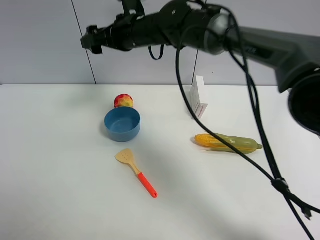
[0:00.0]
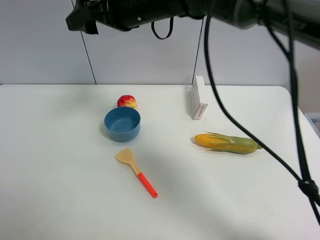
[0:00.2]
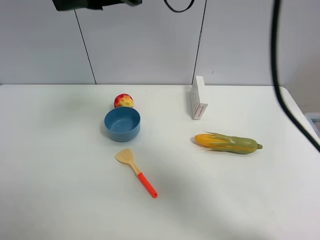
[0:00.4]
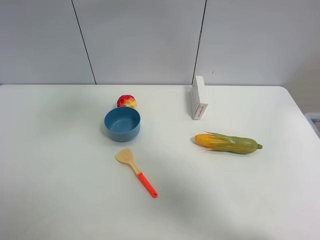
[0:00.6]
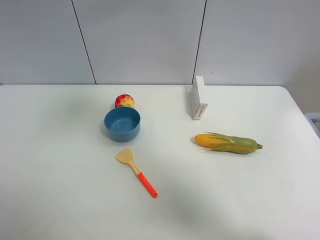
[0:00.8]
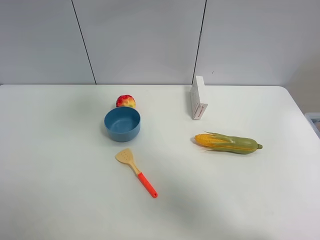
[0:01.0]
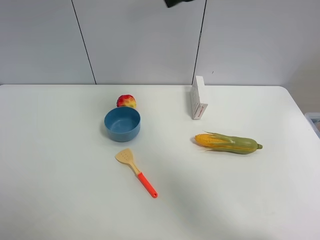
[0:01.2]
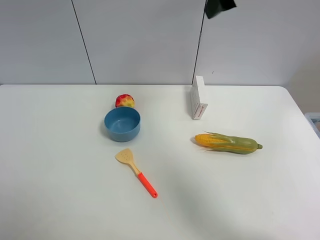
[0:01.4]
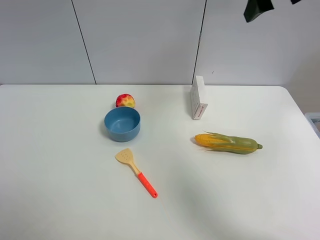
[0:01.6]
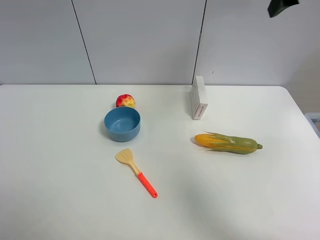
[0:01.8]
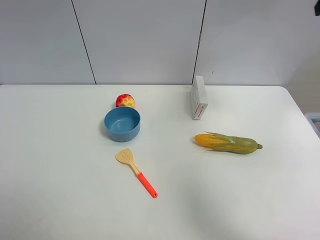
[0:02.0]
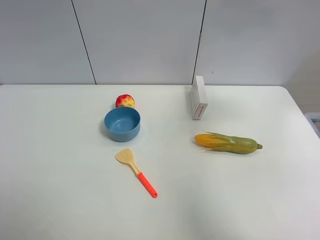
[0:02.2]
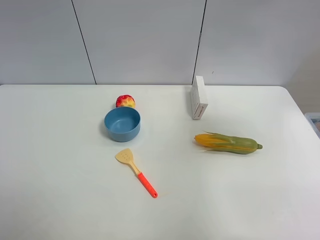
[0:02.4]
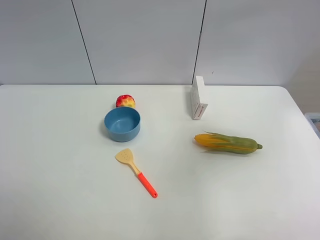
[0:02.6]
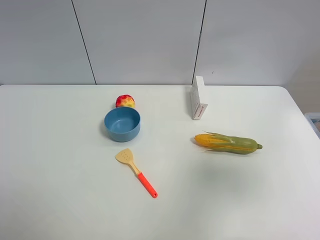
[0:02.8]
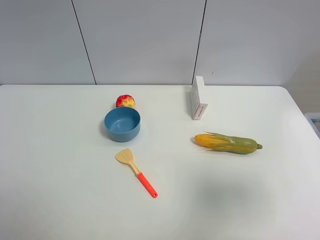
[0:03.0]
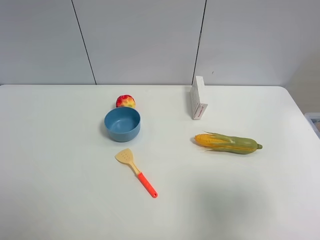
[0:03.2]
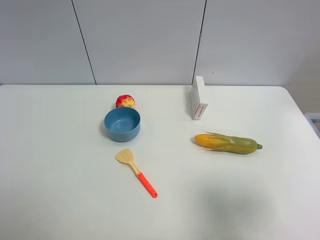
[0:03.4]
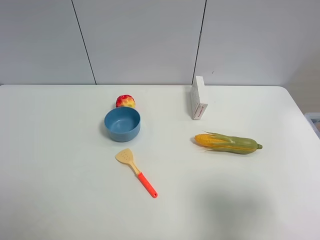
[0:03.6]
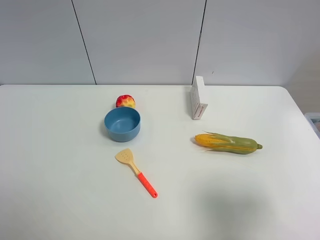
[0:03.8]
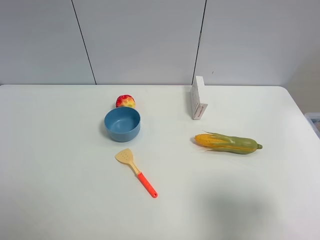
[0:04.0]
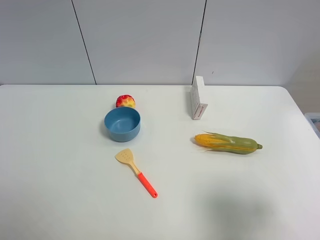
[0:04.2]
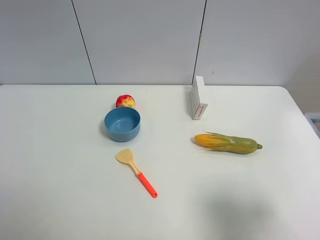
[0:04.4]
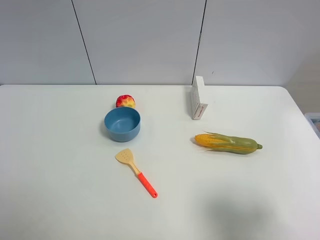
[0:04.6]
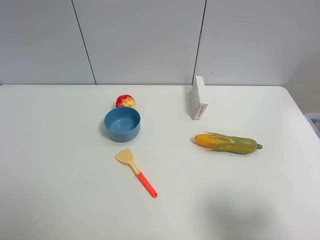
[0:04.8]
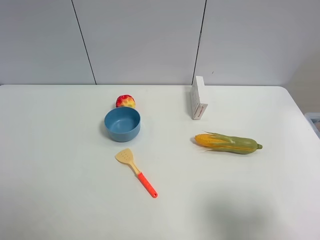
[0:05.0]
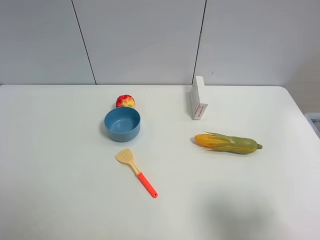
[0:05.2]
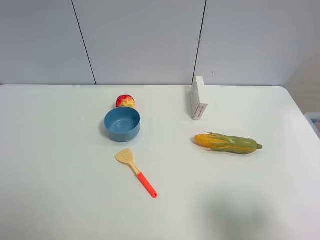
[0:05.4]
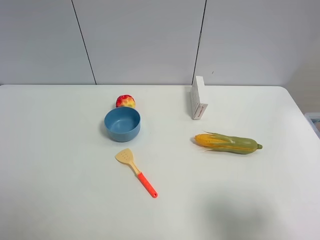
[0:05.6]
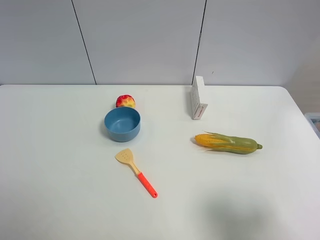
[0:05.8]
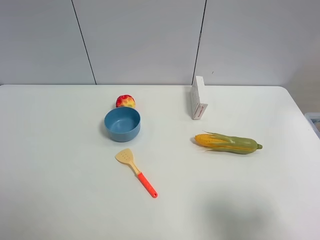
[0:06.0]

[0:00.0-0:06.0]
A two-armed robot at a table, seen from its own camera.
Task of the whole recording: the gripper move the object.
0:00.0 to 0:01.6: The right gripper shifts roughly 30 cm to the right and upward.
0:01.6 to 0:03.0: The right gripper heads backward, covering roughly 30 cm.
0:03.0 to 0:04.4: The right gripper travels downward by about 10 cm.

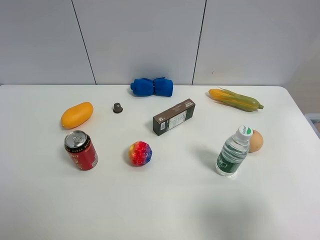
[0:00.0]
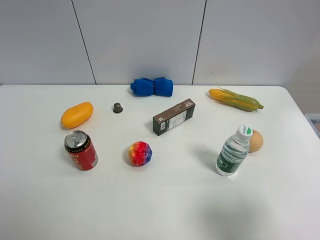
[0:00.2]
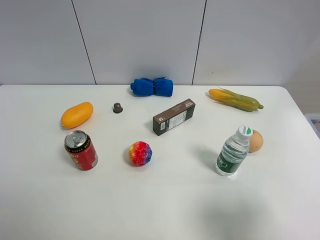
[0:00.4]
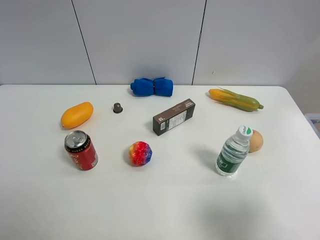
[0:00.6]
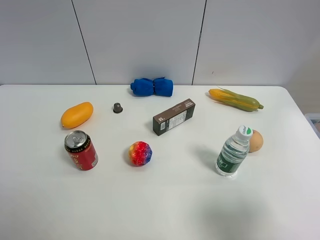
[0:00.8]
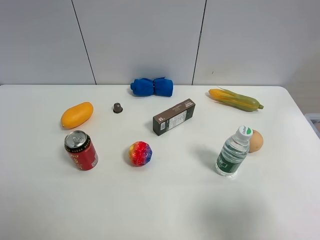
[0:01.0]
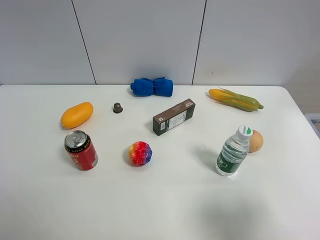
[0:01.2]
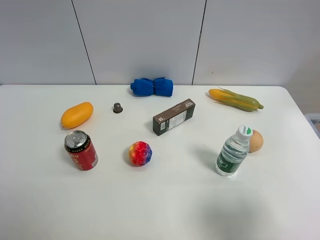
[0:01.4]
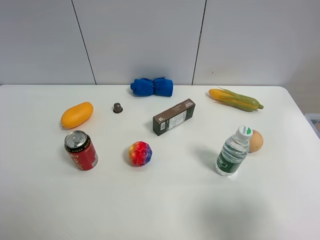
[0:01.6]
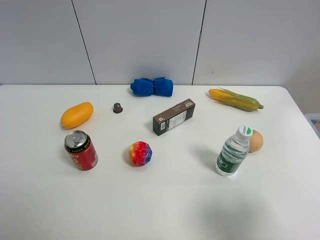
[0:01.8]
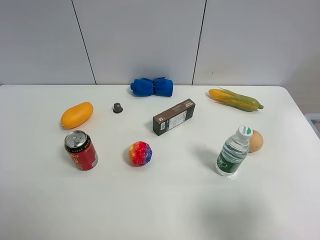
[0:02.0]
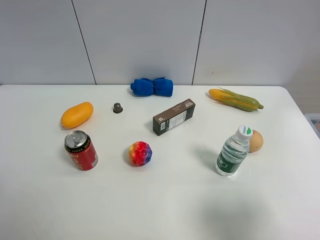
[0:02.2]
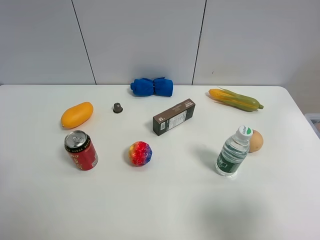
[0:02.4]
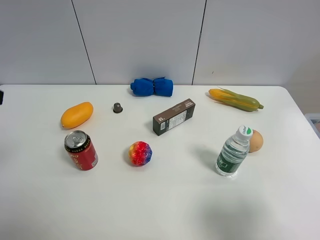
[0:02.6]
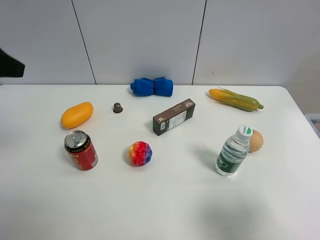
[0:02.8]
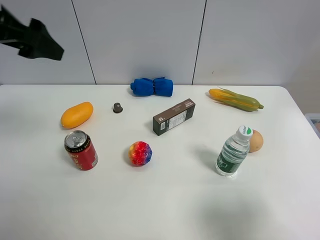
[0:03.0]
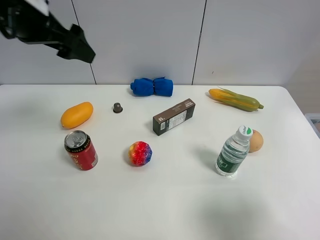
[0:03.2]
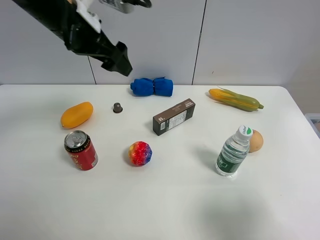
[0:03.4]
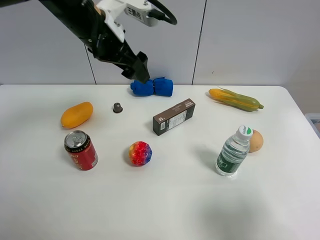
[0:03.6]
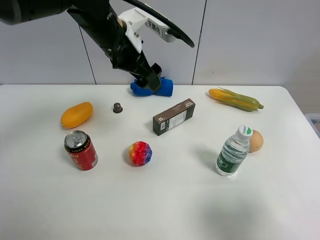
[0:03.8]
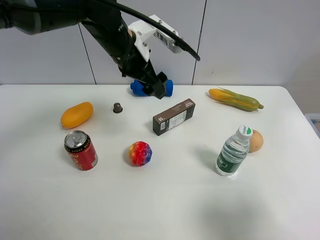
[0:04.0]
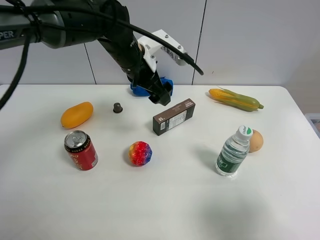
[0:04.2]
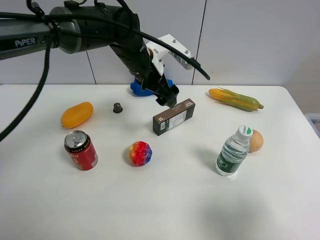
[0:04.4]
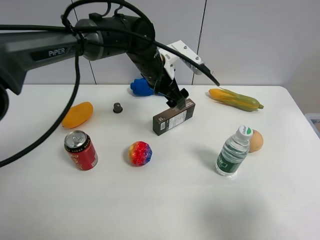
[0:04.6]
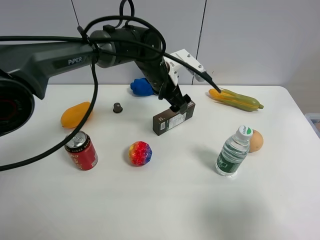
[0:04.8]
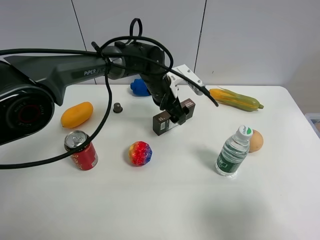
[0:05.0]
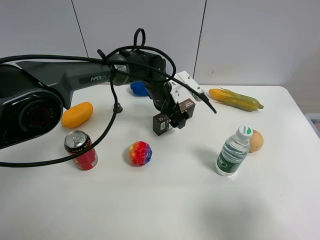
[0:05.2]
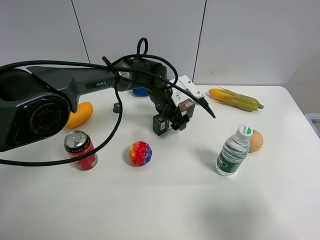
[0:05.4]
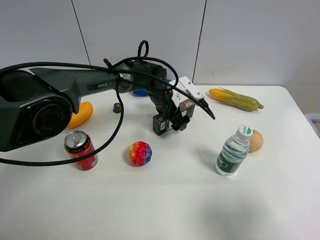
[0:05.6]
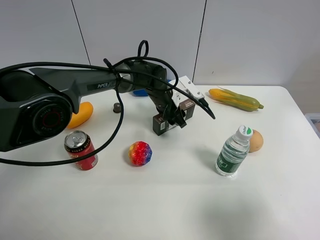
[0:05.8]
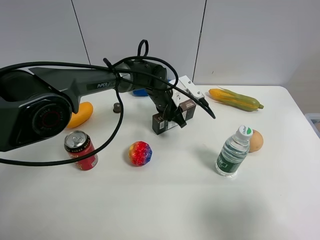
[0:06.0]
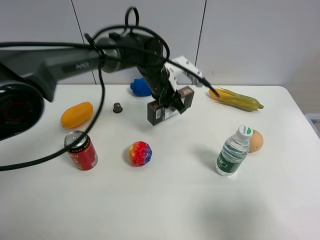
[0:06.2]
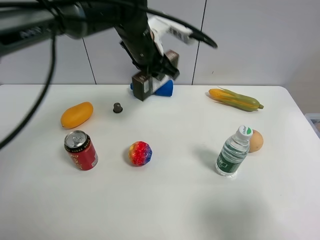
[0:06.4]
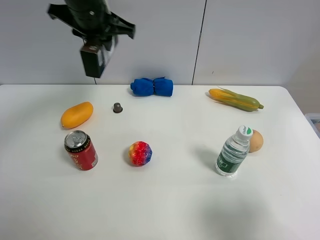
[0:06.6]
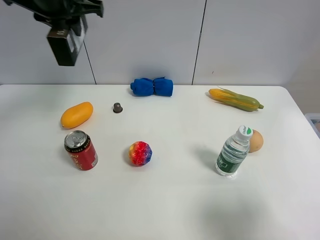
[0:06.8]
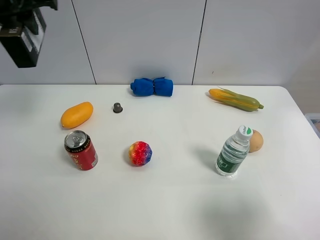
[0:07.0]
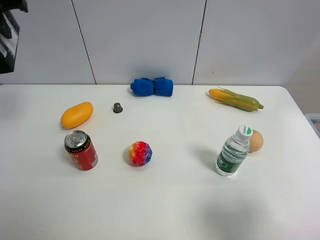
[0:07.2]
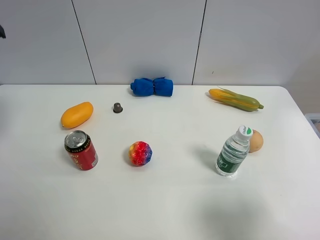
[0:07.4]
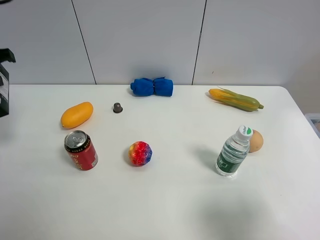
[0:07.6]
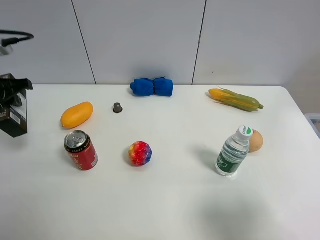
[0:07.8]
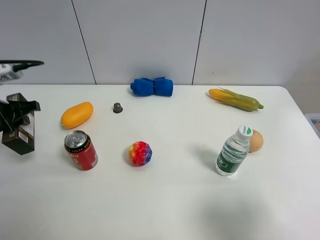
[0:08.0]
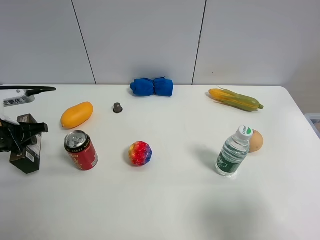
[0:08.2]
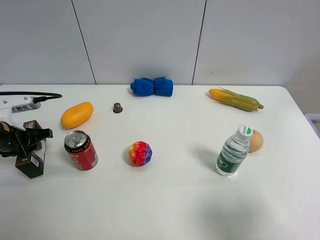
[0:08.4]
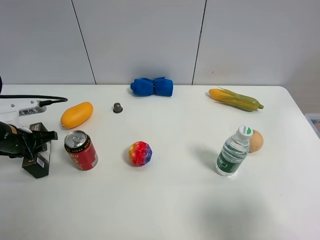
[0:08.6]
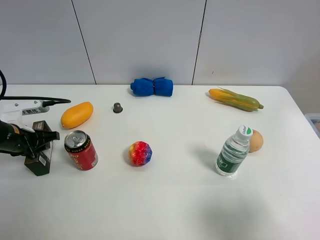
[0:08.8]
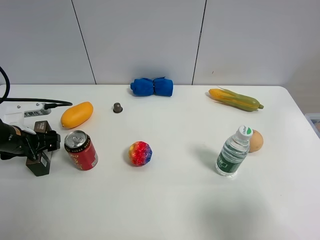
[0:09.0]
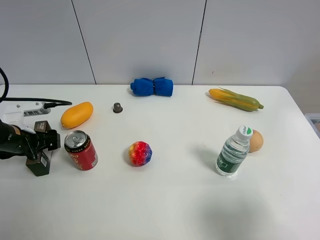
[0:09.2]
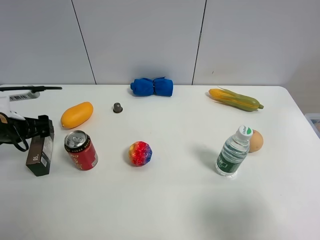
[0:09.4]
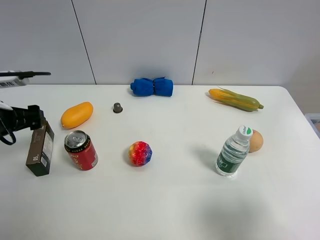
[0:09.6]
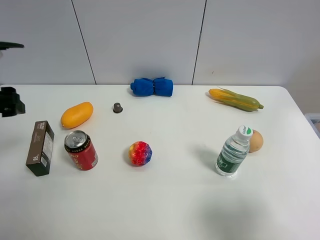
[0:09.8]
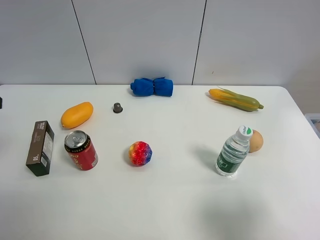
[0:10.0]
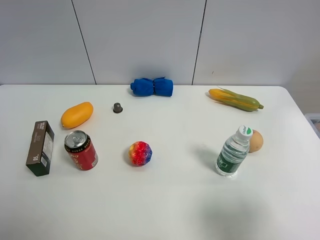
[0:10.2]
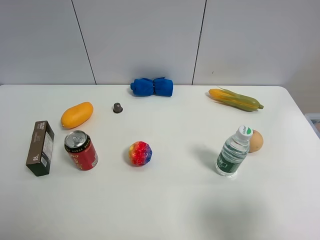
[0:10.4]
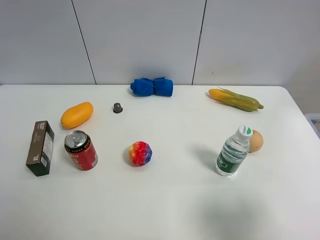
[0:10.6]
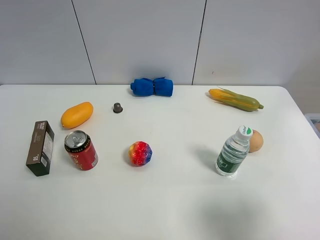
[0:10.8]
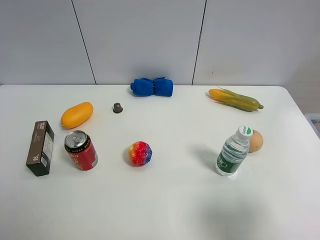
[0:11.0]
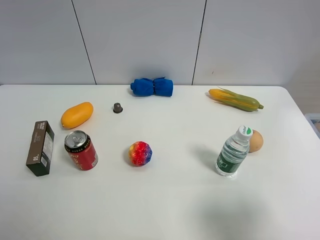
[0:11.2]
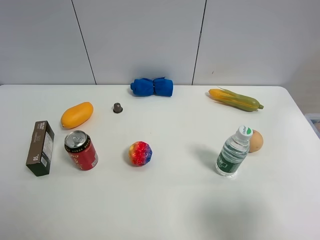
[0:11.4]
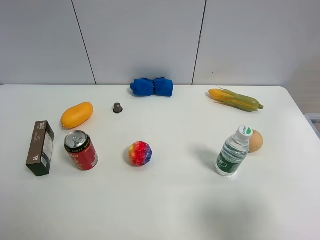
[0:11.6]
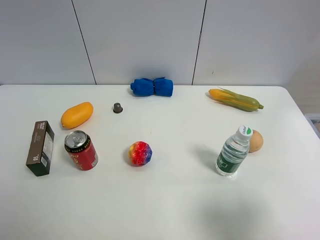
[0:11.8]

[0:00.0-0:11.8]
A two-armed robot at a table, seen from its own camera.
Task of the whole recording: the gripper move the object.
Step, 0:00.0 to 0:05.8: Grasp the Luckin Coffee box with the left gripper.
Step, 0:06.0 to 0:09.0: Place the Luckin Coffee box on the table with the left gripper.
0:00.0 to 0:01.4: Both grippers stay put.
0:01.4 to 0:03.0: The left gripper travels forward by approximately 30 cm.
0:03.0 to 0:04.4: The left gripper shifts about 30 cm to the right, downward and forward.
0:04.4 to 0:06.0: The left gripper travels downward by about 10 cm, and closes up.
0:06.0 to 0:07.4: The left gripper goes some 40 cm to the left and upward.
0:07.4 to 0:08.8: The left gripper moves downward, roughly 25 cm.
0:08.8 to 0:10.4: The left gripper is displaced upward and backward by some 30 cm, and opens.

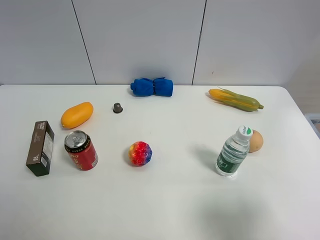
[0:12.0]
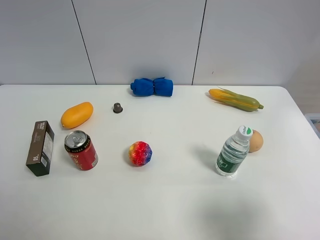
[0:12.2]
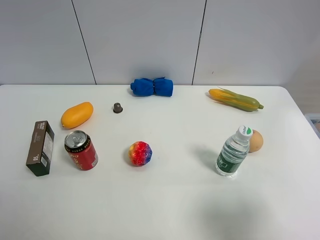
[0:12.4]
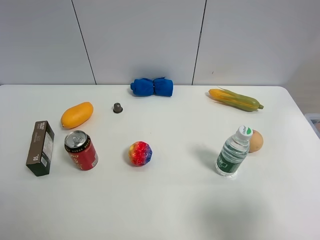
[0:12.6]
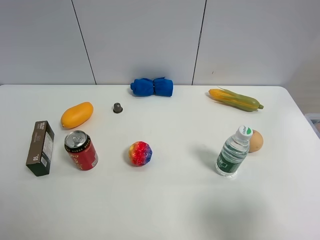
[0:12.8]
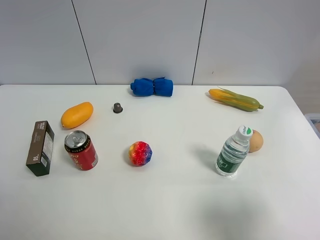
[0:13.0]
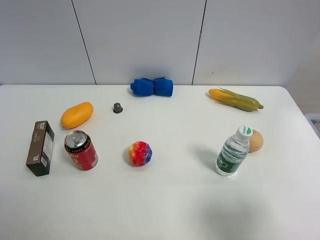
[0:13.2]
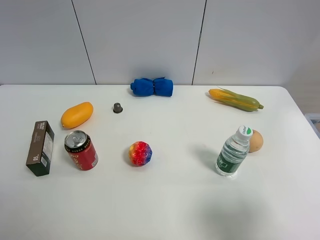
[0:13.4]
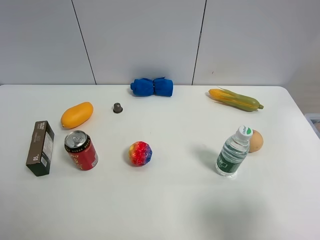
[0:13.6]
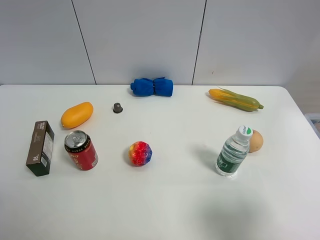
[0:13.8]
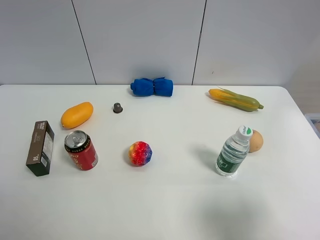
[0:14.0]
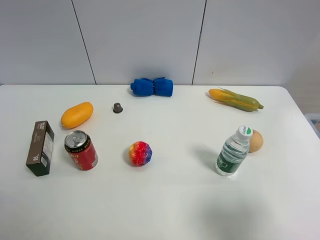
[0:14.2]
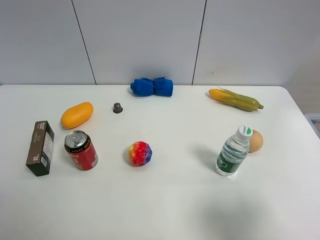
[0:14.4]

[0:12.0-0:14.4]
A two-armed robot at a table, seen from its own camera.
Task of the whole recording: the gripper move the object.
0:13.2 to 0:14.4: Both grippers stay about where they are.

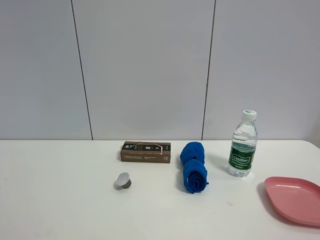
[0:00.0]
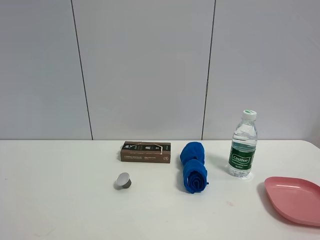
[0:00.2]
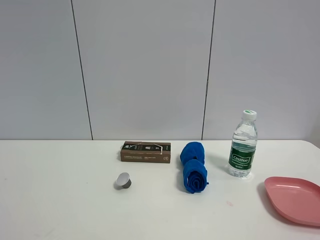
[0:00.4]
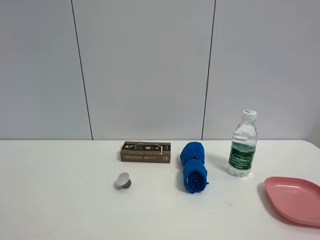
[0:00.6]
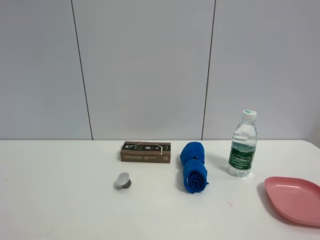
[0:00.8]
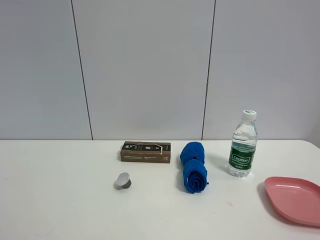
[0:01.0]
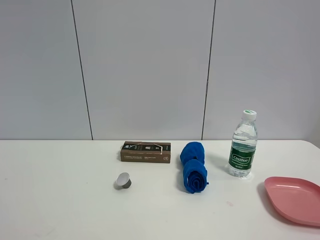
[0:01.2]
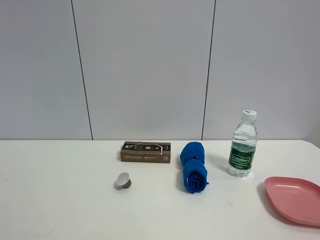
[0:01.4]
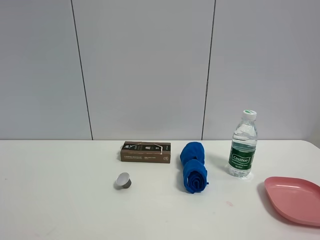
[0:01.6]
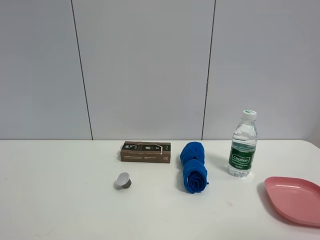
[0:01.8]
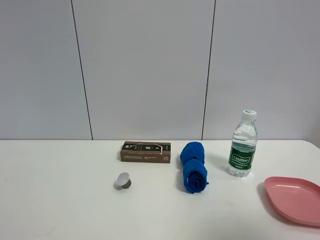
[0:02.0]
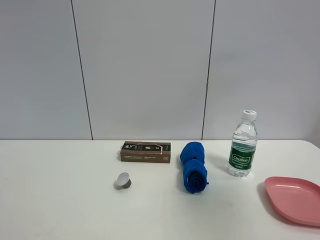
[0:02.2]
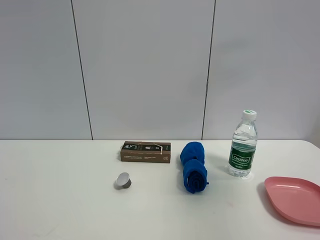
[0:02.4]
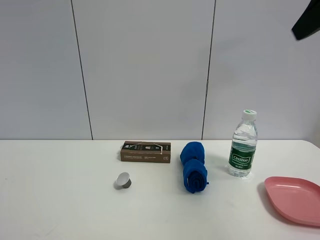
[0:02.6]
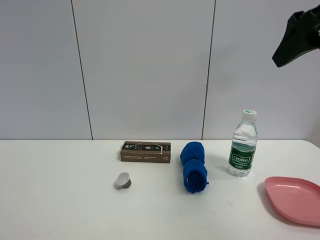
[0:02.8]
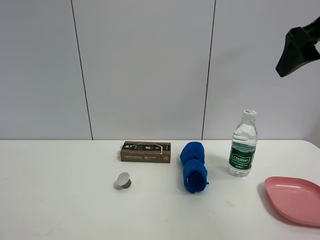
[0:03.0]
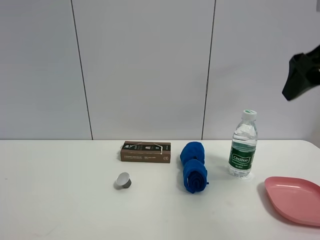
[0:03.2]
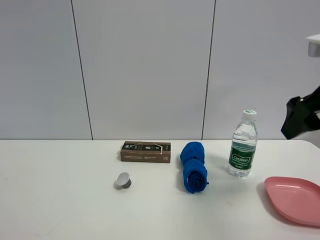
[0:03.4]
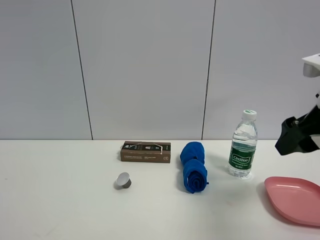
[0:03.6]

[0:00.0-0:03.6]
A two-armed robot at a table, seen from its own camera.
Task of the whole recording: the gripper move the object.
0:01.8 to 0:03.6: The right gripper is displaced forward by roughly 25 cm.
